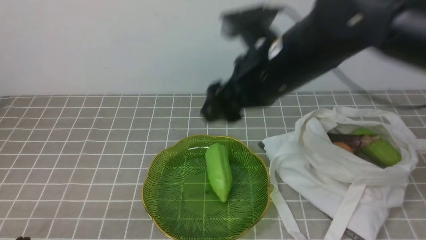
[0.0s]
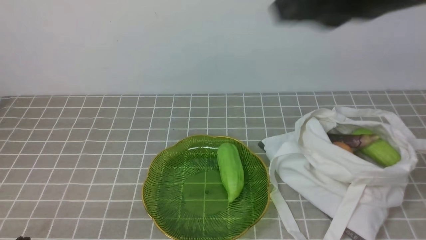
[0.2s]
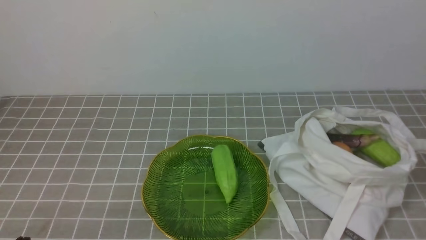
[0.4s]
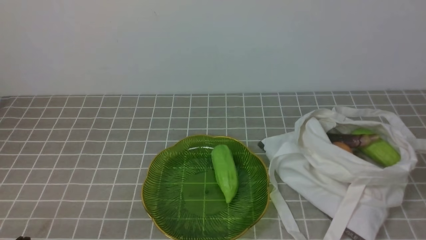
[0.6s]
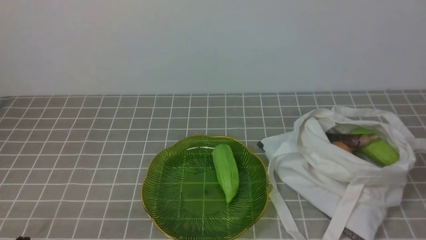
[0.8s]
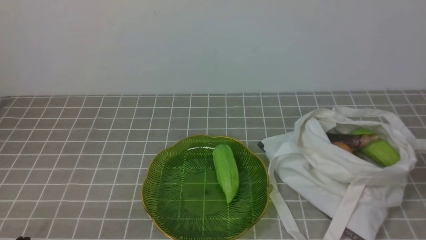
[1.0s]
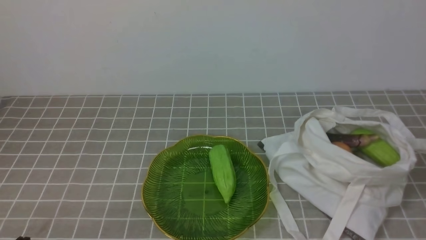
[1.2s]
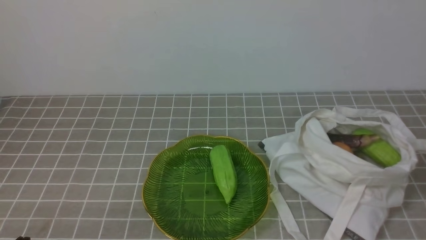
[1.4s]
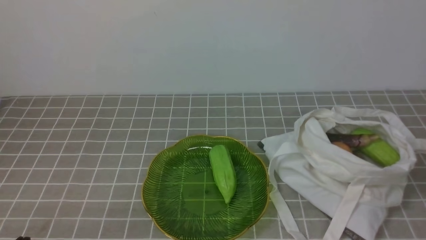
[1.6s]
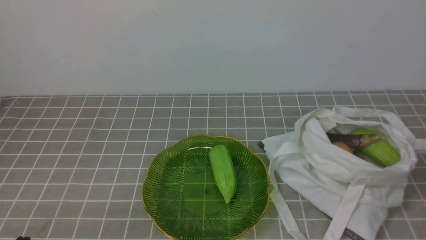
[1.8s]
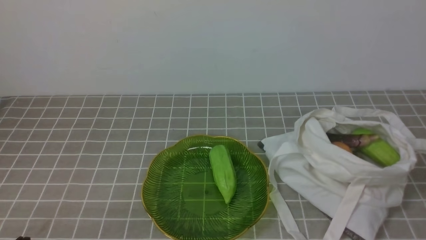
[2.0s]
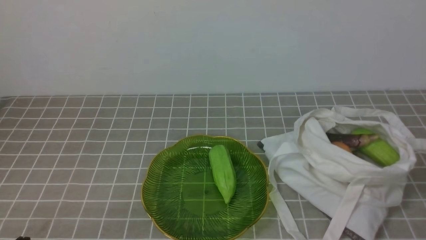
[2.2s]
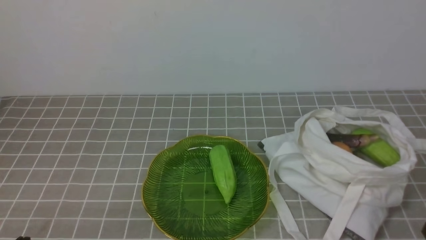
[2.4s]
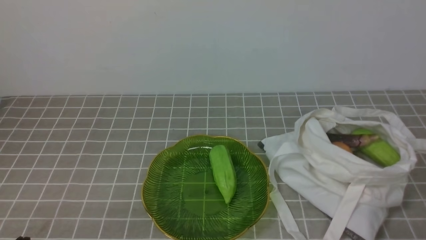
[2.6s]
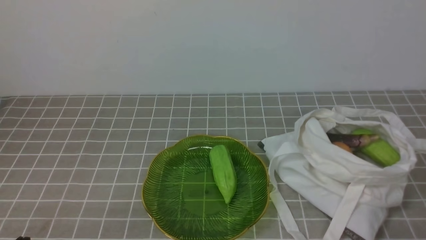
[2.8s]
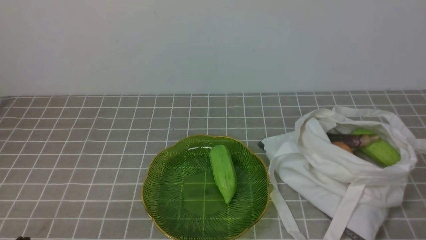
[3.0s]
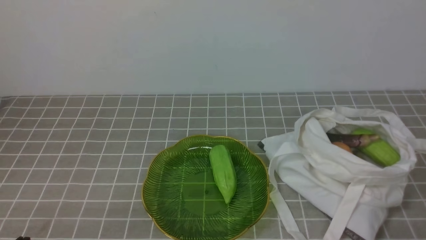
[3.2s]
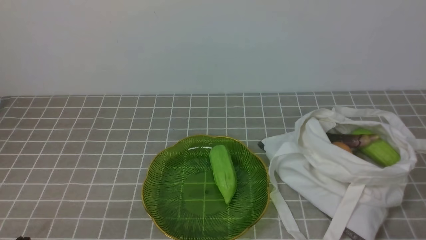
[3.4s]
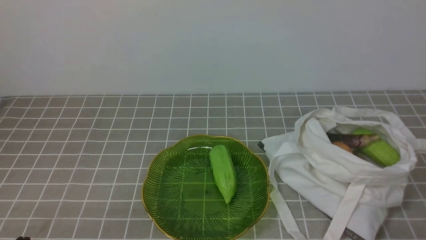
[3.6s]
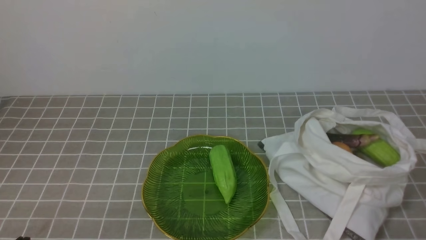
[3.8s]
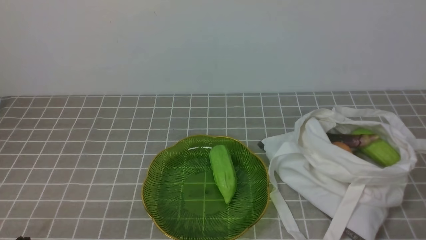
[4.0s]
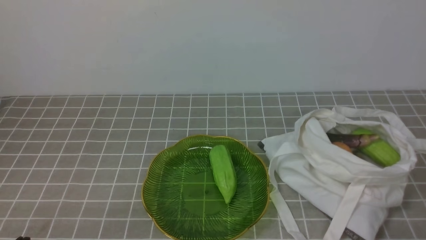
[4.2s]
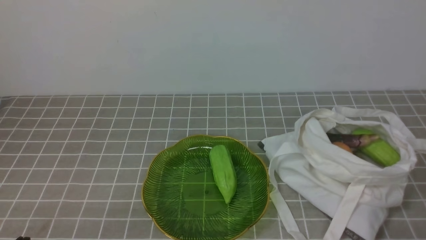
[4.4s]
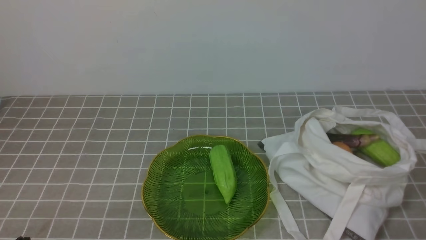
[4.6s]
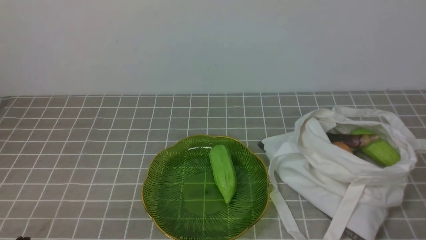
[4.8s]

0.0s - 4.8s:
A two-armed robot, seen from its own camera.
Task of the whole recording: take vegetables from bag on grey coffee tablecloth place on plate.
0.0s - 1.6s: The right gripper moves backward and to the right, roughly 35 cm, and closes up.
3.2s - 4.8s: Both grippers stay put.
